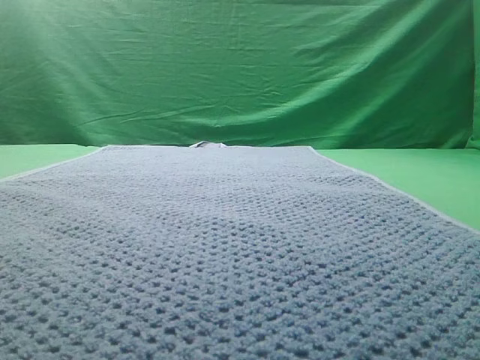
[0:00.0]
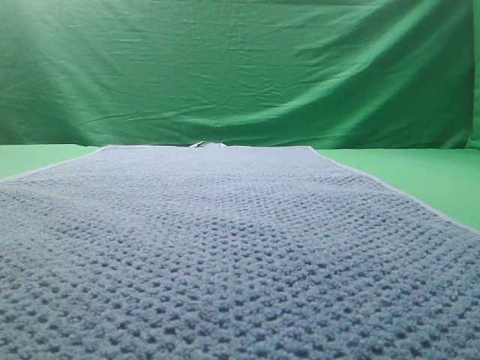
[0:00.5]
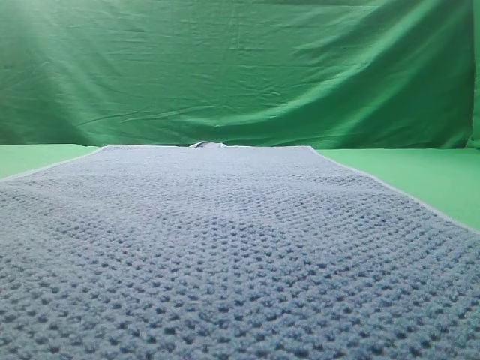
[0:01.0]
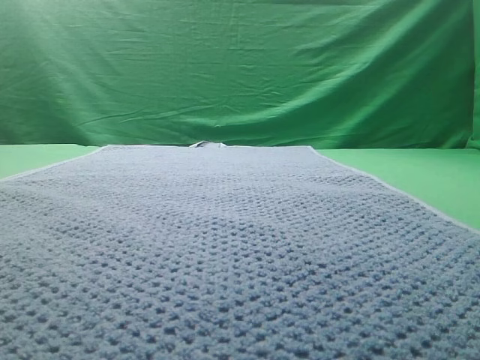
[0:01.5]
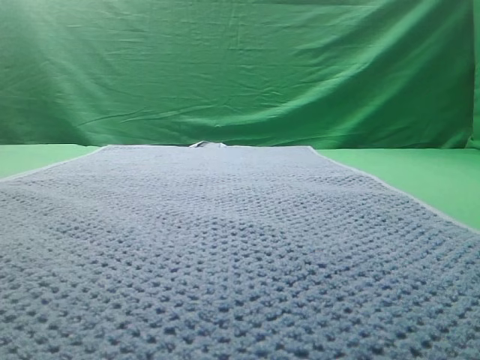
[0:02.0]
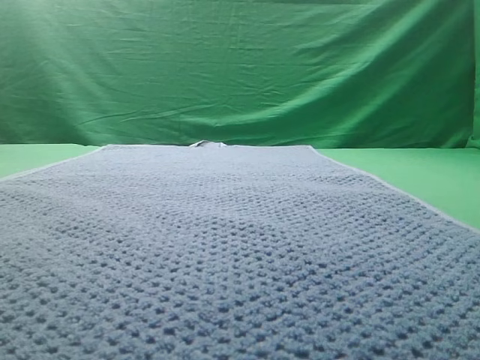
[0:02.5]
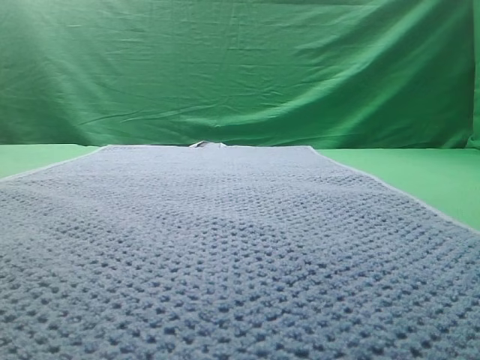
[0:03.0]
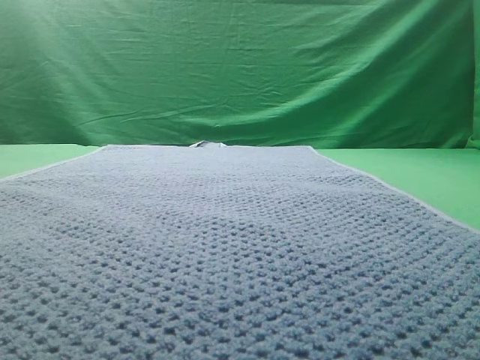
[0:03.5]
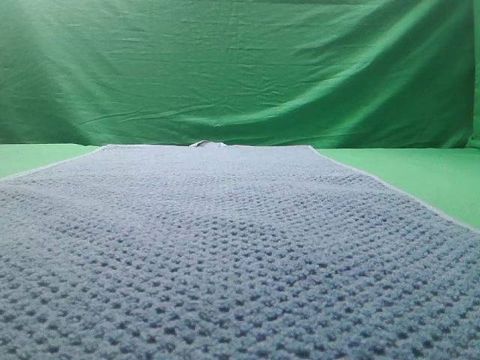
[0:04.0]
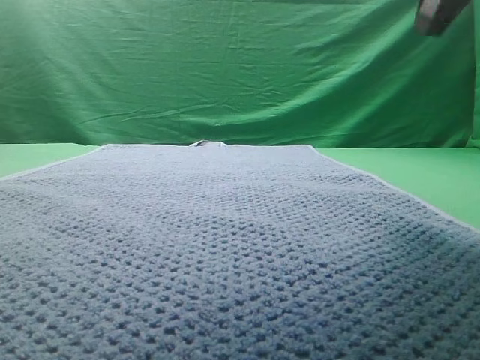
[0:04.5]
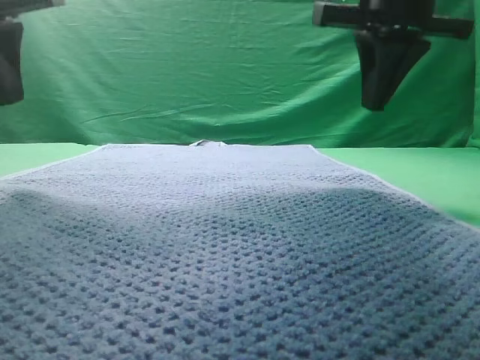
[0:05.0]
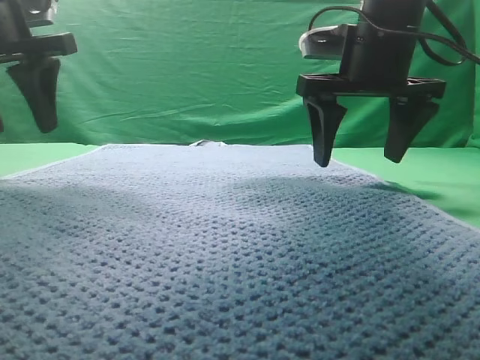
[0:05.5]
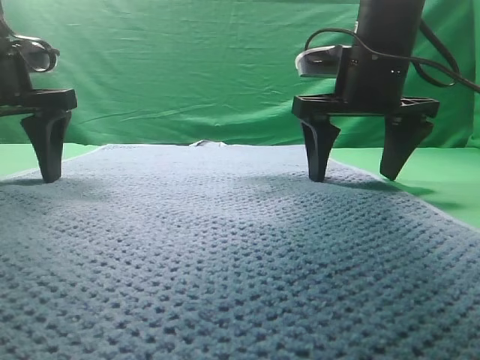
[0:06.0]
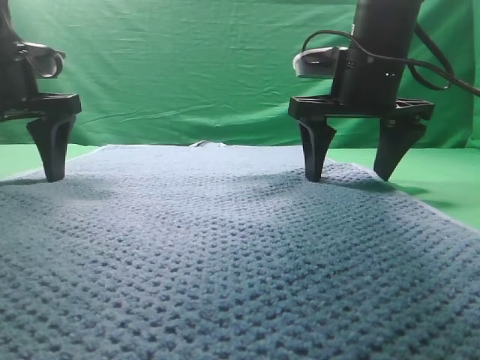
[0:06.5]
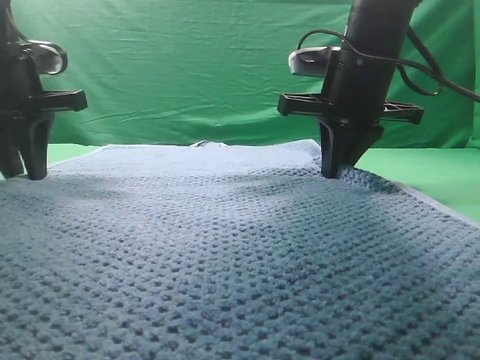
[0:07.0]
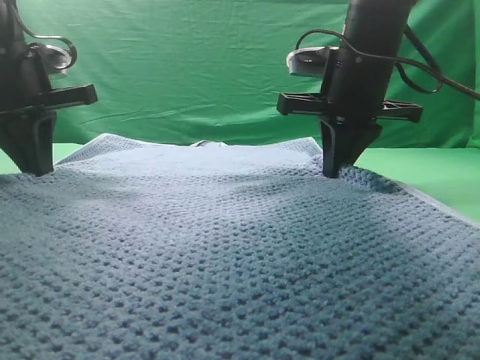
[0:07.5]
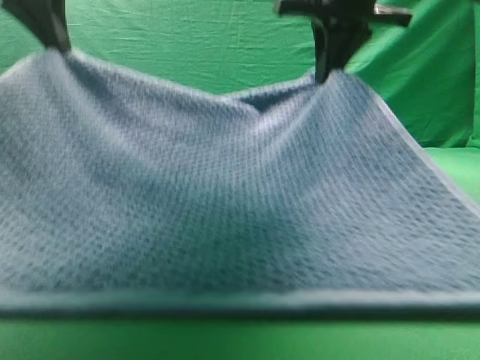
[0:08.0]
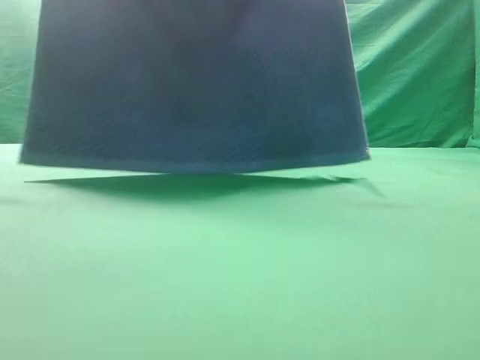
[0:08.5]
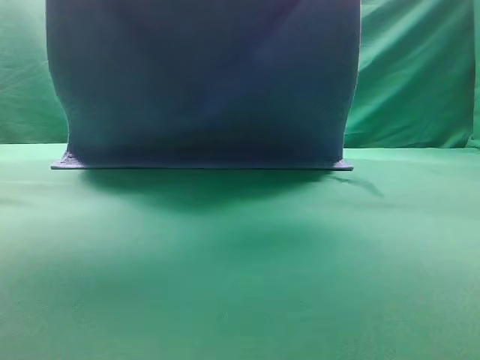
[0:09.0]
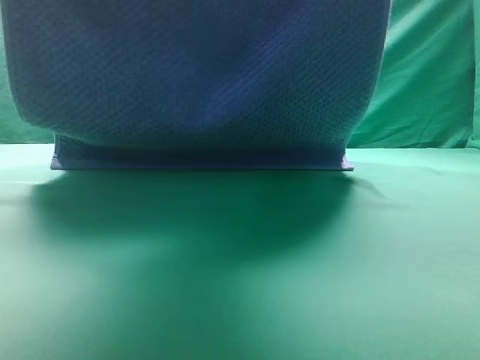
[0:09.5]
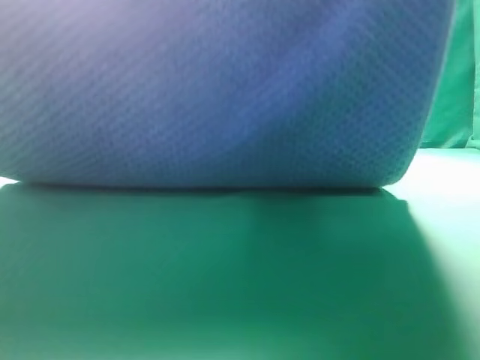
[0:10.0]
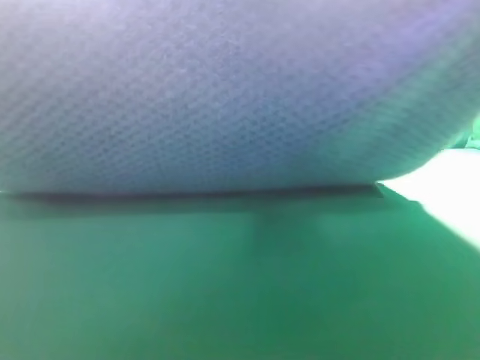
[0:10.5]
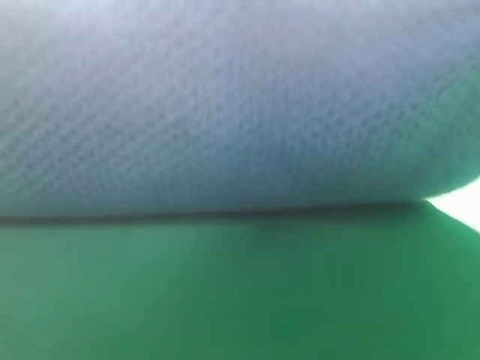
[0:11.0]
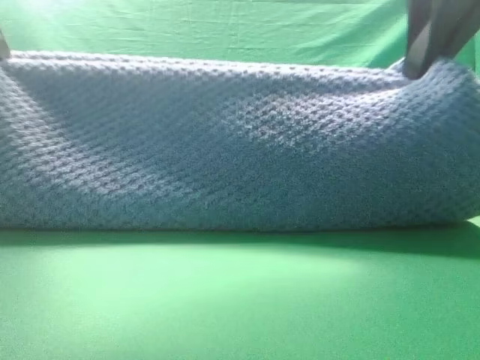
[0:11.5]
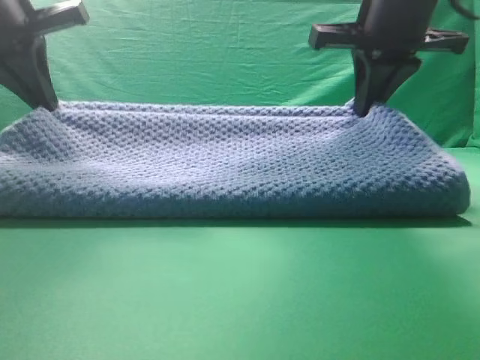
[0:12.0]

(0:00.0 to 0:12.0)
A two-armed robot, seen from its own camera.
Task of the whole recording: fold the towel on the table twice.
Step, 0:00.0 - 0:08.5: pick up the towel with two arm.

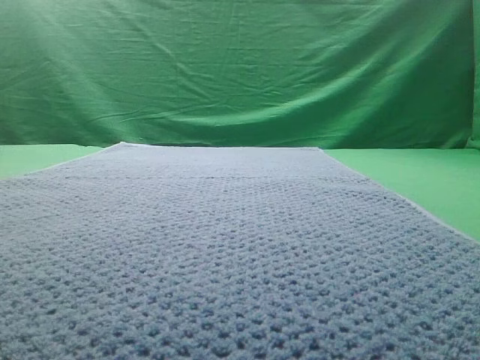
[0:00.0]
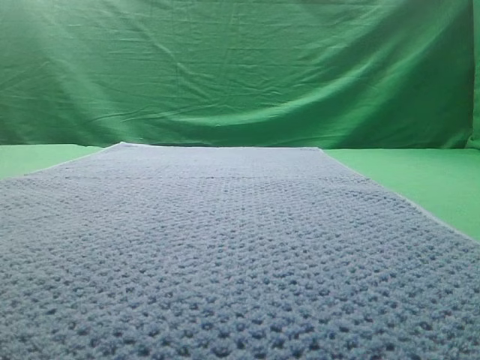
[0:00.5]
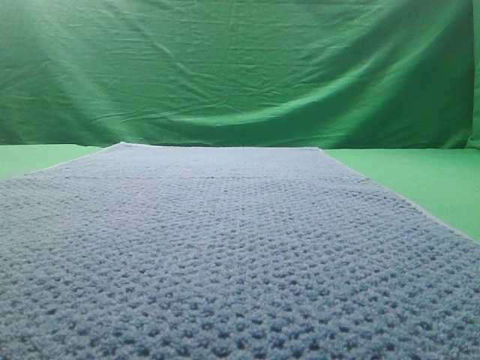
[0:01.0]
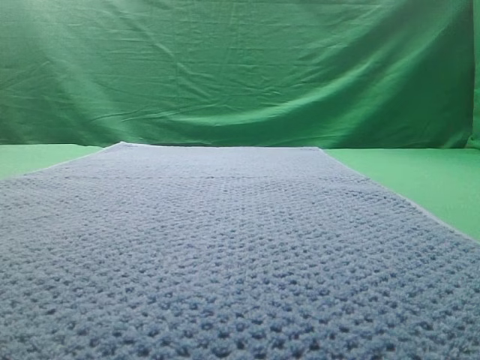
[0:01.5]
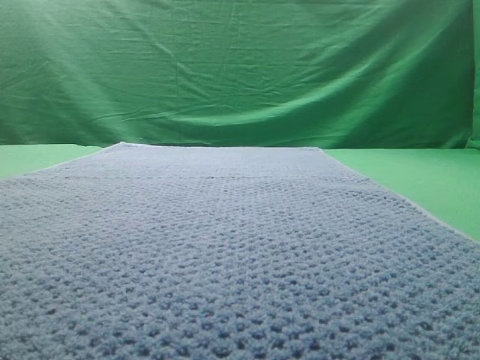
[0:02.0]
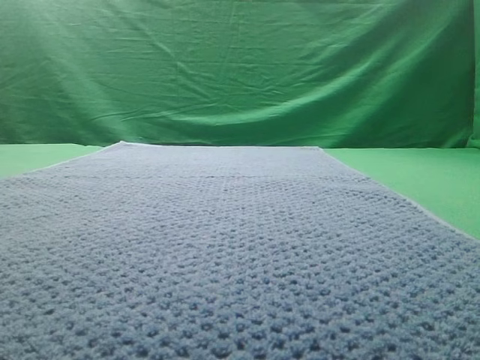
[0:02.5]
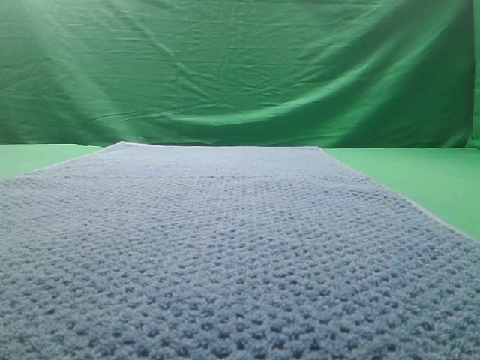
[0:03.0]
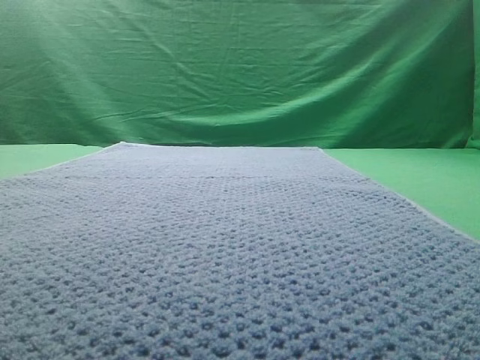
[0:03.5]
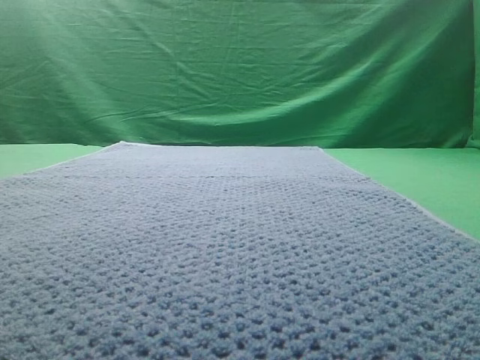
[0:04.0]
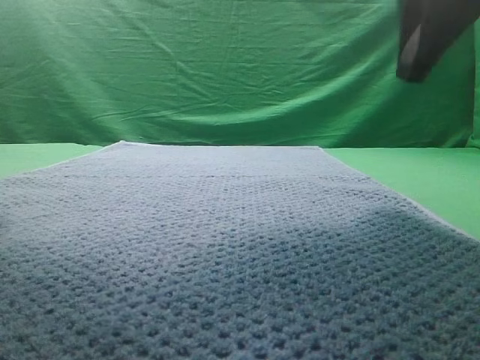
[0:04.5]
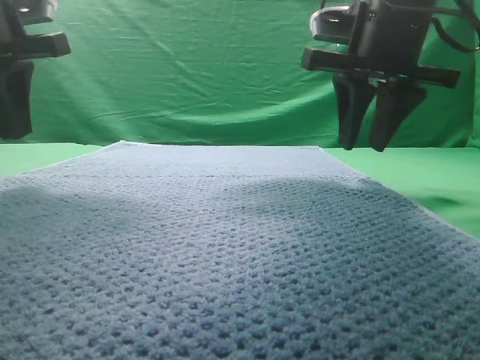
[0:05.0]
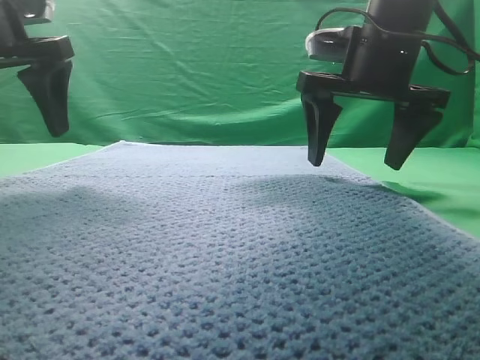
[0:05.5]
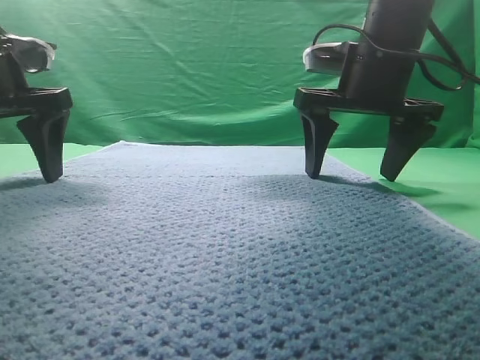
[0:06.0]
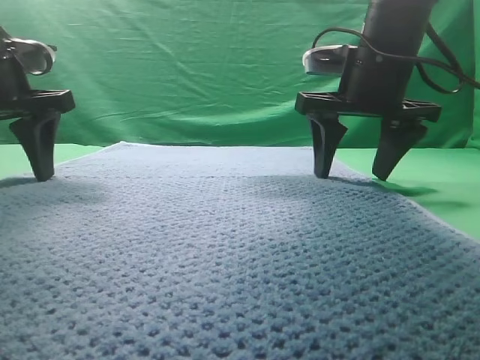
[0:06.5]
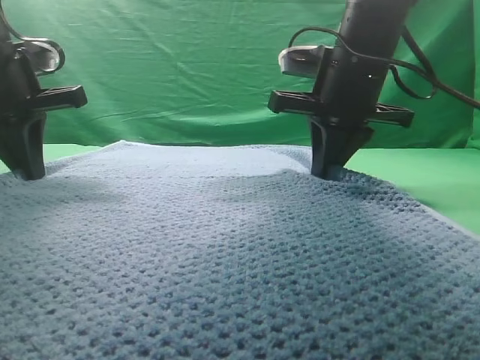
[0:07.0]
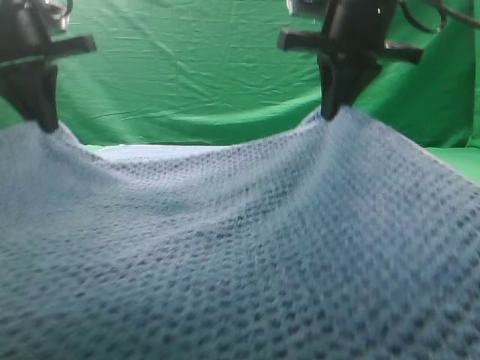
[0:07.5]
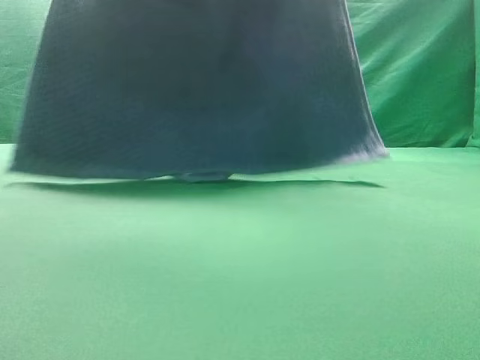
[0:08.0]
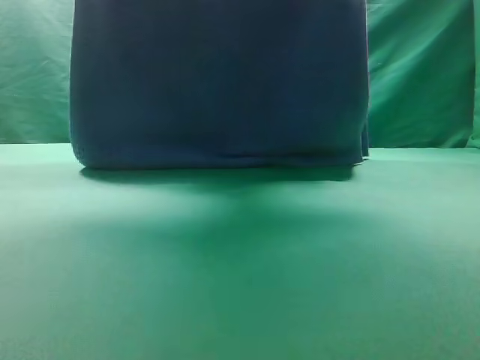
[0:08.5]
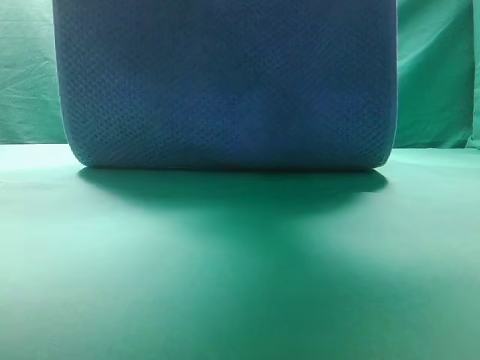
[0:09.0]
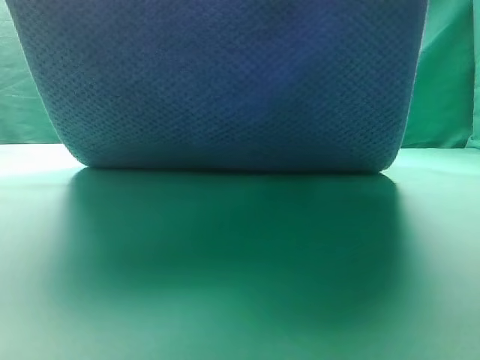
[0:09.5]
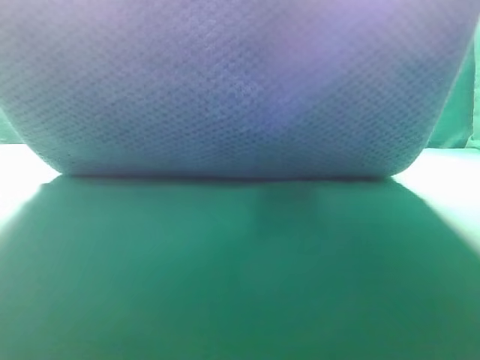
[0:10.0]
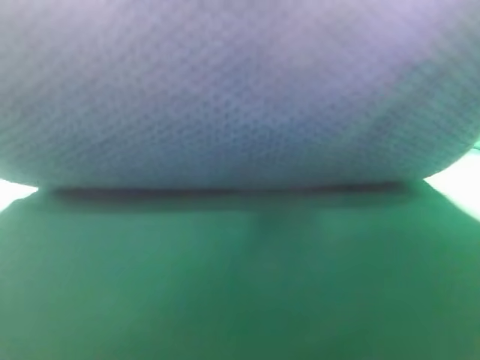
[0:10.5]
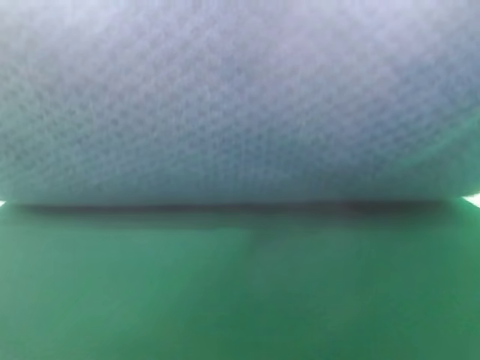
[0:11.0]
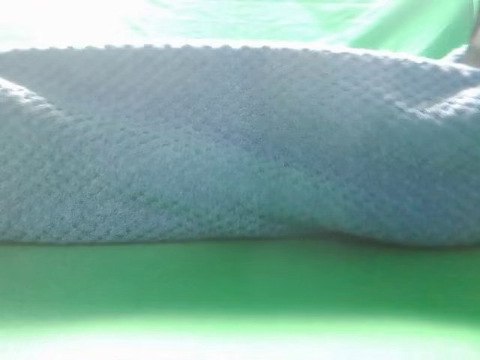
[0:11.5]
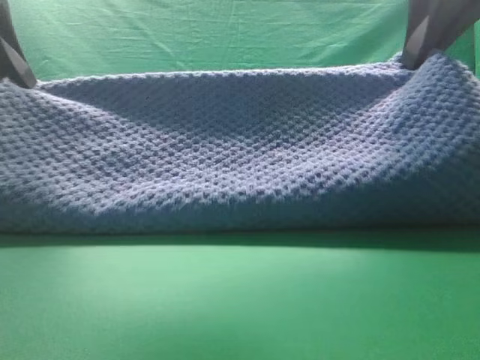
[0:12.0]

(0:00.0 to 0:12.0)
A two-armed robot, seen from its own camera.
Task of the whole recording: fold the towel on the table twice.
Step, 0:00.0 - 0:08.0: pick up the towel with two arm.

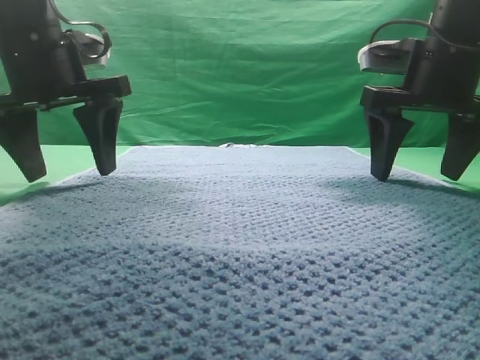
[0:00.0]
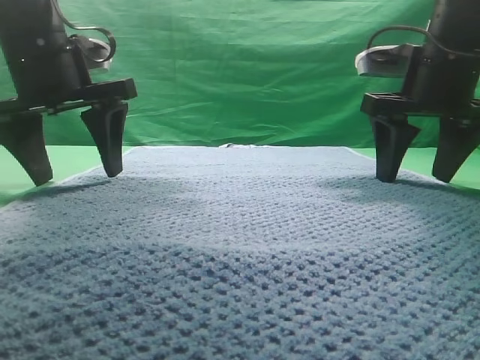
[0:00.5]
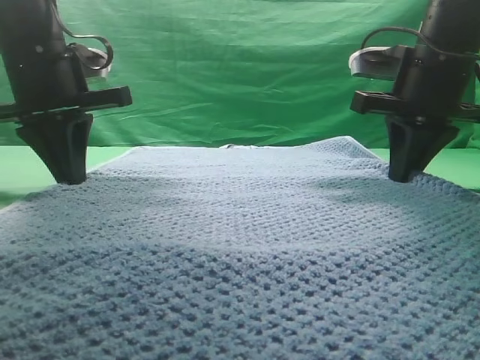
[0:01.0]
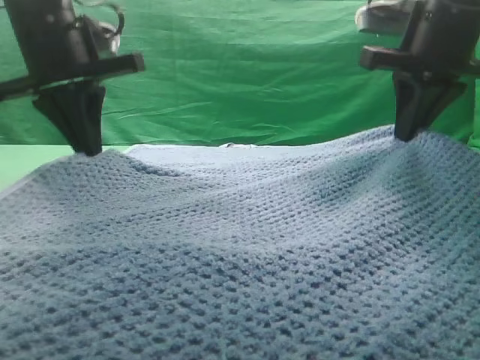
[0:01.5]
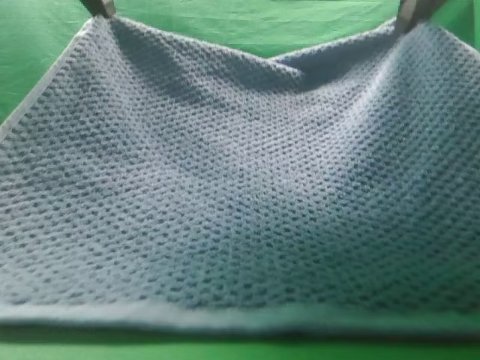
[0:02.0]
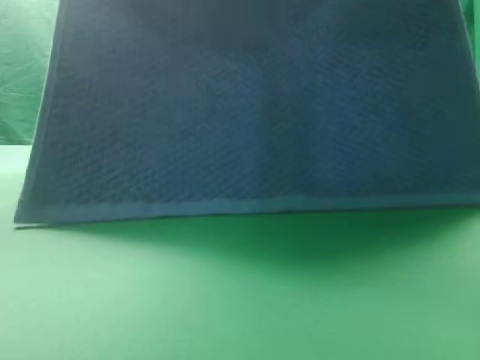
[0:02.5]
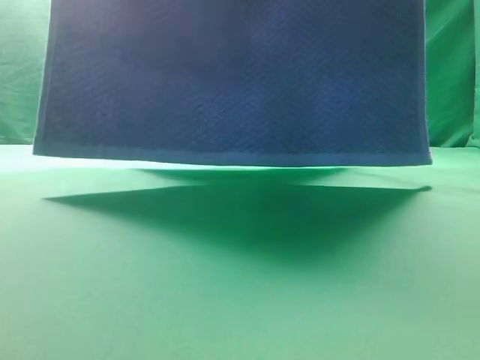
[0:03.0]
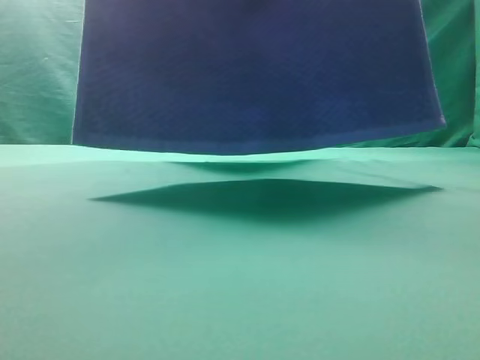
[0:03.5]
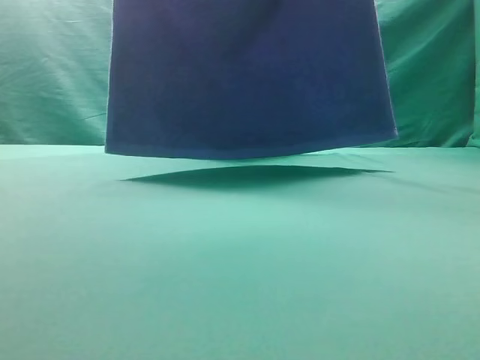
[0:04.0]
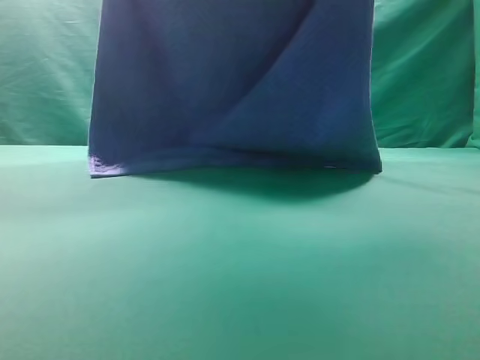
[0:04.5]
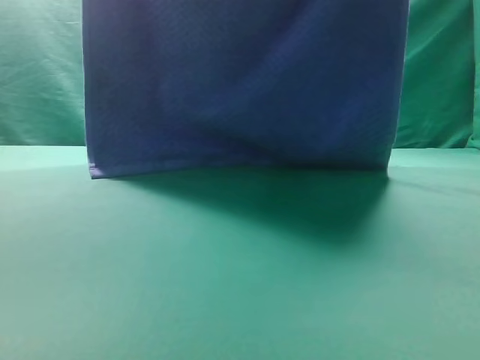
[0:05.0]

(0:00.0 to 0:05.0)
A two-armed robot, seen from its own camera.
Task of the whole recording: fold the towel on the table twice.
Step, 0:00.0 - 0:03.0: pick up the towel with two arm.
